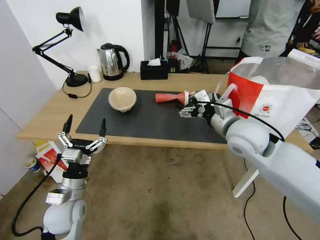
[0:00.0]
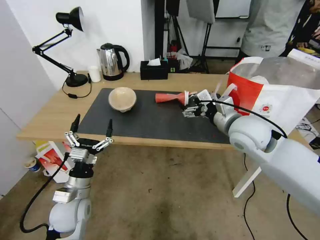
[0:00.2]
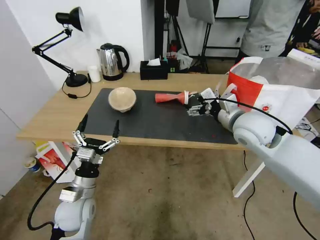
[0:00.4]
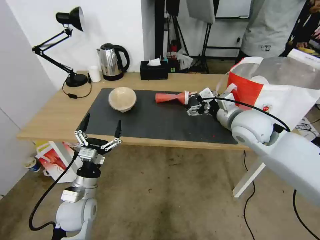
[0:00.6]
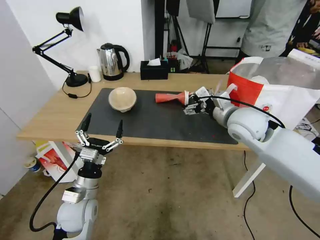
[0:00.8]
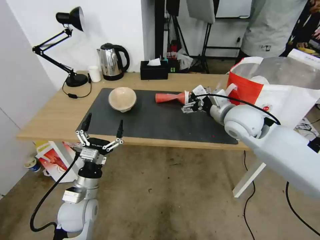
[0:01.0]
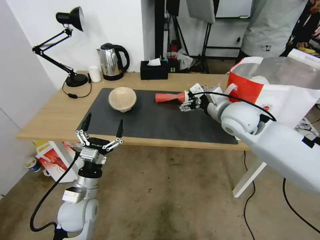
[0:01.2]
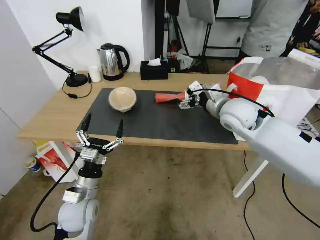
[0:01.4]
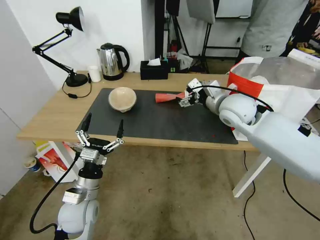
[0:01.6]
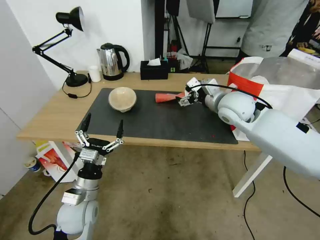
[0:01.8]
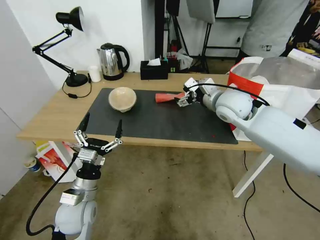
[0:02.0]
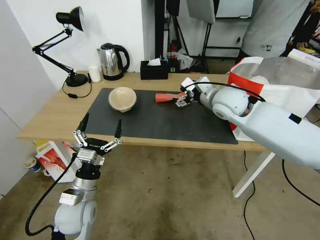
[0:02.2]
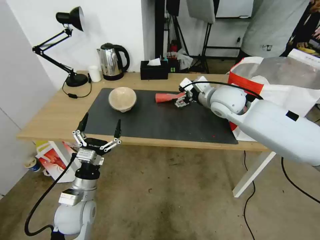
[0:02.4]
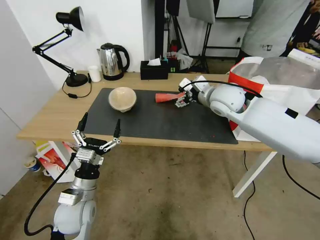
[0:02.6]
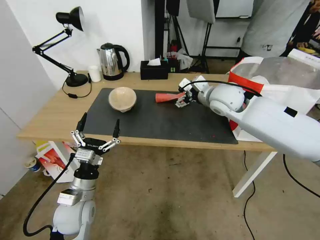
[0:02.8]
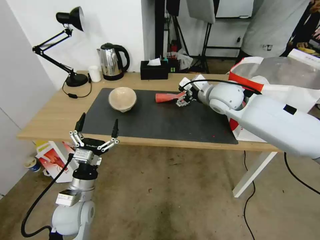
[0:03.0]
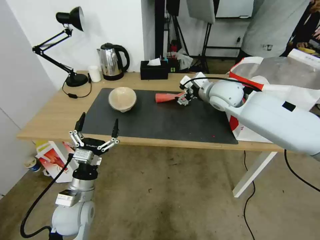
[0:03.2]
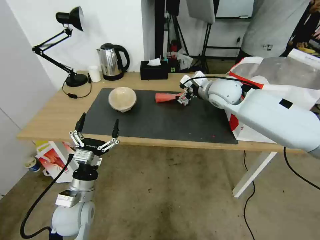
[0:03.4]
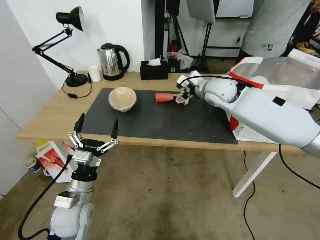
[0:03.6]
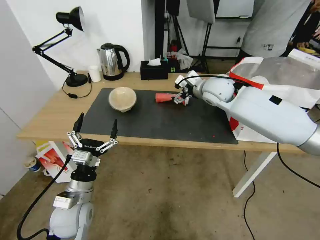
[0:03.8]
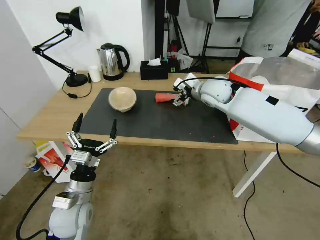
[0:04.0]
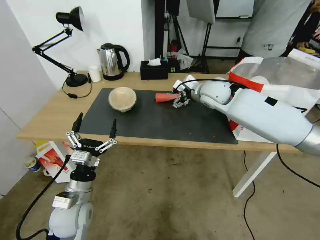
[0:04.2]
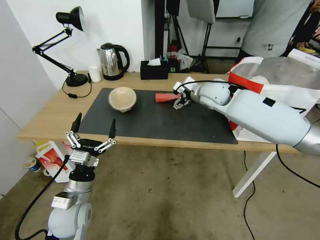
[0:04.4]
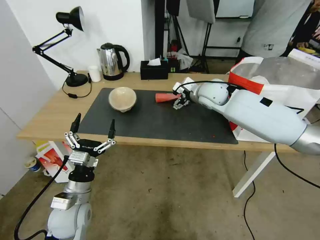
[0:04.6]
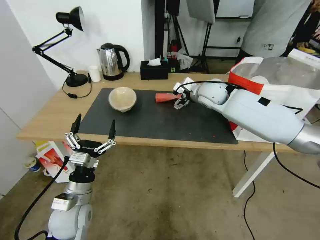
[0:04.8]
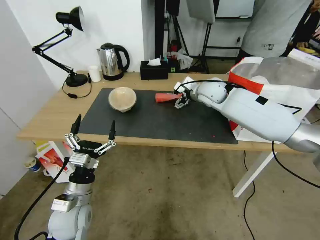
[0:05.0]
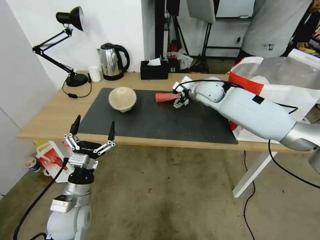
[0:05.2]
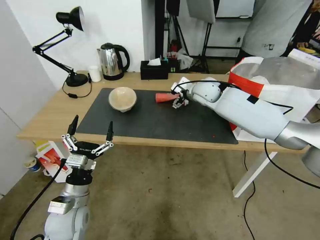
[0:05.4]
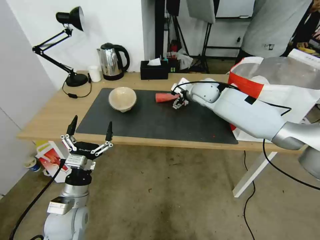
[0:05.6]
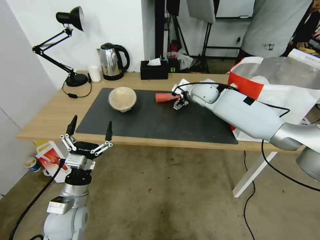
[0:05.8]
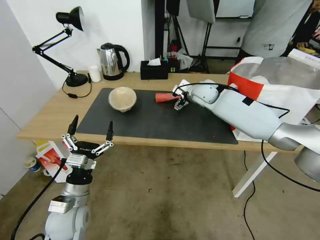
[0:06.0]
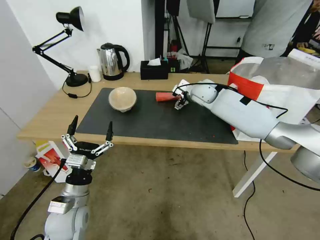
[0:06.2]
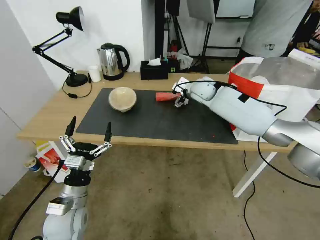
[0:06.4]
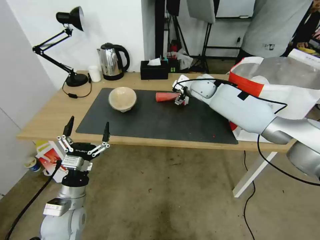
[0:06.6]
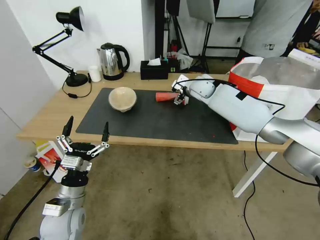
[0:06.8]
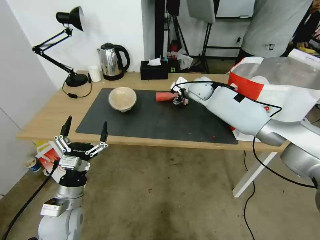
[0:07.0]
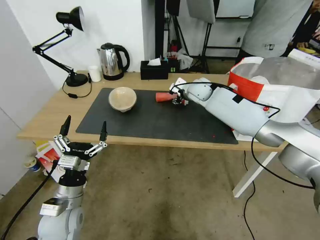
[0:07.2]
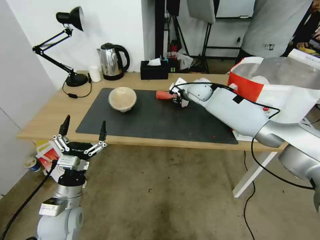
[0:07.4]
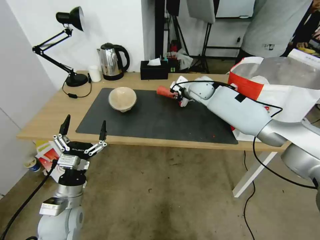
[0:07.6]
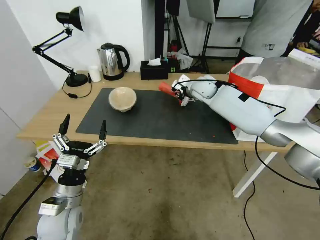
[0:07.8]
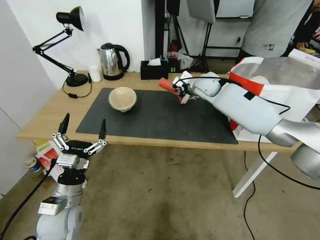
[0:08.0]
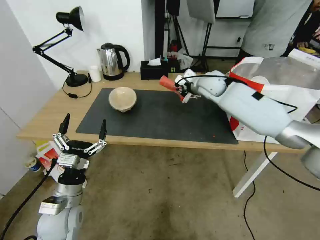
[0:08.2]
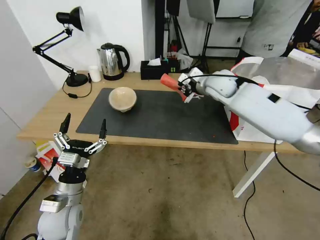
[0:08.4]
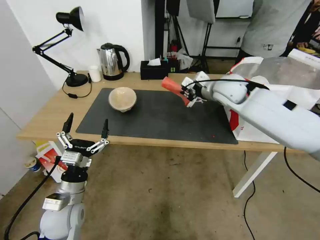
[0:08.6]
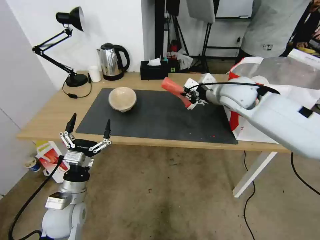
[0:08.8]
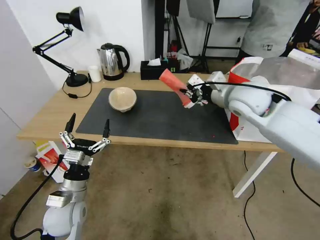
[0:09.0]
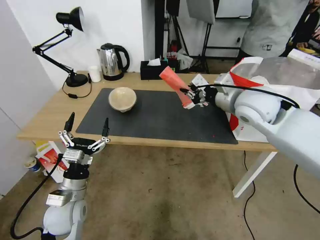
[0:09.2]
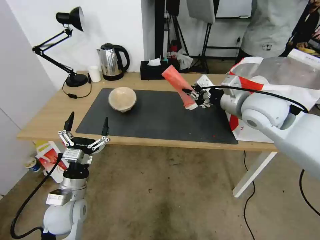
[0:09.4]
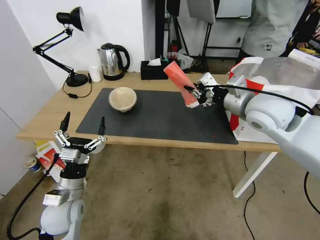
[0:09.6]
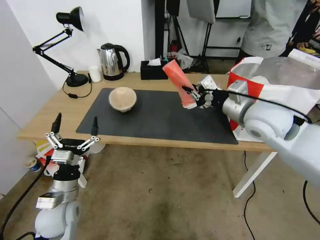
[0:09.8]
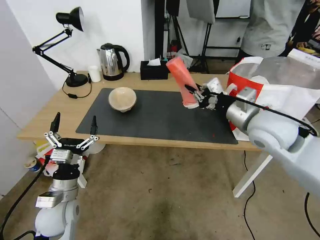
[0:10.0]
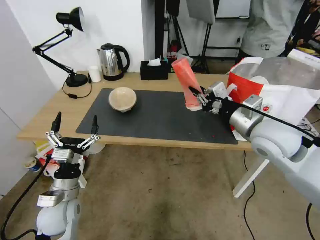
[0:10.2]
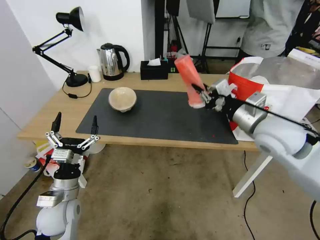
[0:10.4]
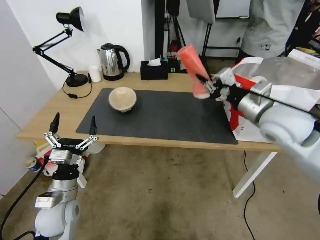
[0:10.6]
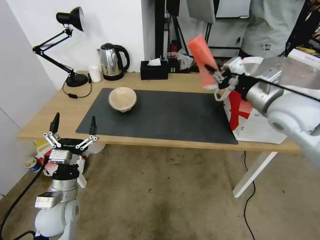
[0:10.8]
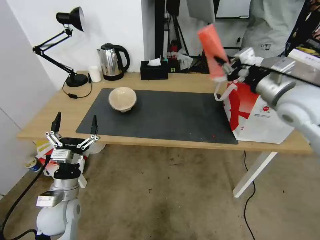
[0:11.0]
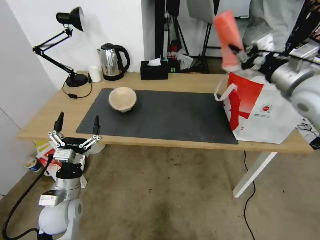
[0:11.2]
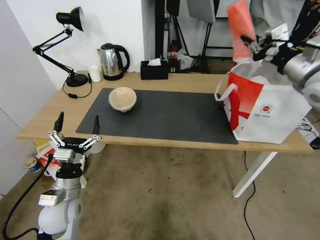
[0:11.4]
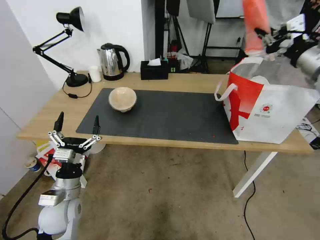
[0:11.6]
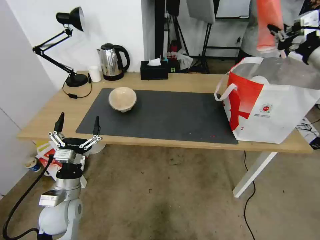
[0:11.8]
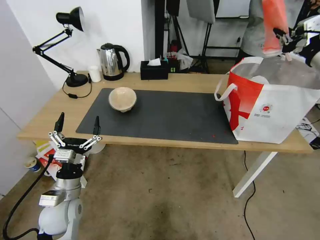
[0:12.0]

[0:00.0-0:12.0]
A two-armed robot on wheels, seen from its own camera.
Task of the whole recording: Pick up the trash from the table and place it into the takeout bag.
0:00.0 to 0:01.6: The right gripper is displaced forward by roughly 10 cm.
0:01.6 to 0:03.0: The right gripper ends up roughly 5 cm from where it was.
0:03.0 to 0:04.4: The right gripper moves roughly 5 cm.
0:04.4 to 0:06.0: The right gripper shifts approximately 5 cm forward.
0:06.0 to 0:07.6: The right gripper closes.
0:07.6 to 0:09.0: The right gripper travels backward, upward and to the right by approximately 20 cm.
0:09.0 to 0:10.4: The right gripper goes approximately 10 cm backward.
0:10.4 to 0:12.0: The right gripper travels to the right, upward and forward by roughly 20 cm.

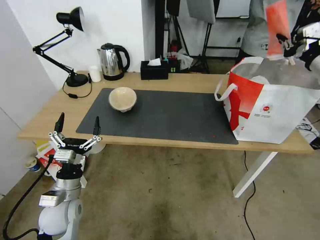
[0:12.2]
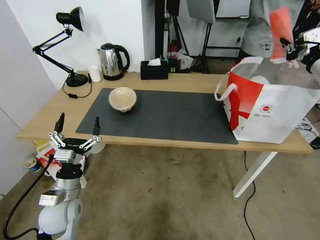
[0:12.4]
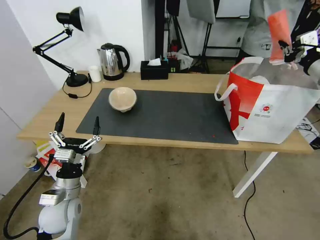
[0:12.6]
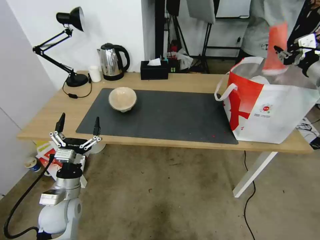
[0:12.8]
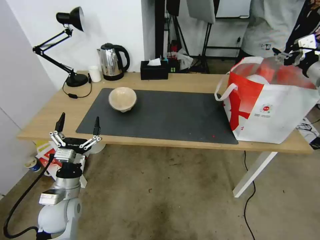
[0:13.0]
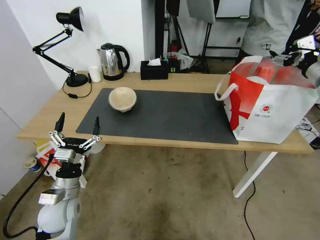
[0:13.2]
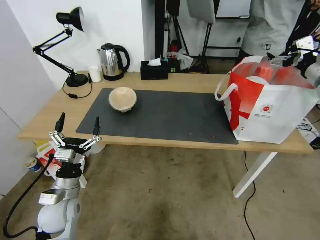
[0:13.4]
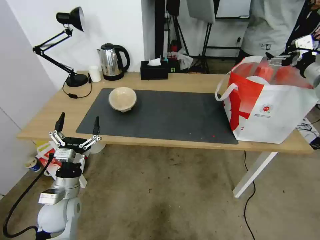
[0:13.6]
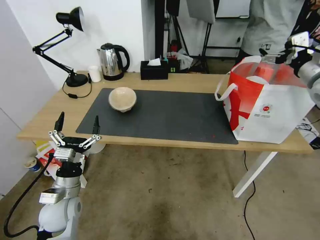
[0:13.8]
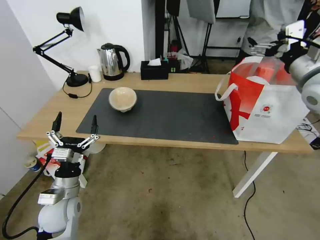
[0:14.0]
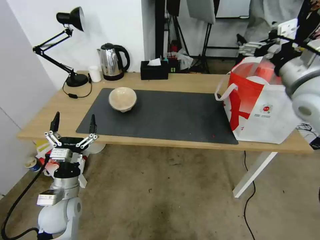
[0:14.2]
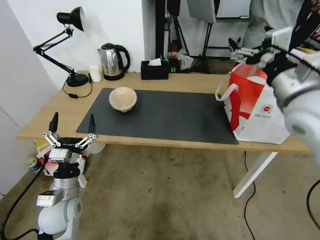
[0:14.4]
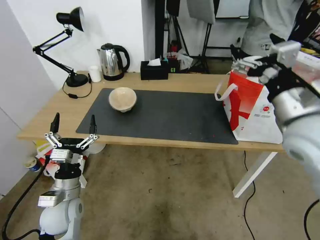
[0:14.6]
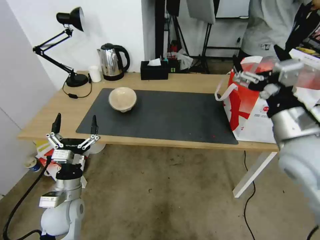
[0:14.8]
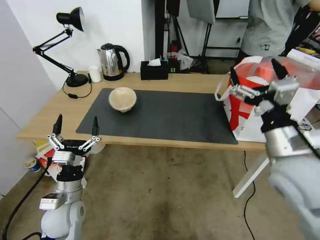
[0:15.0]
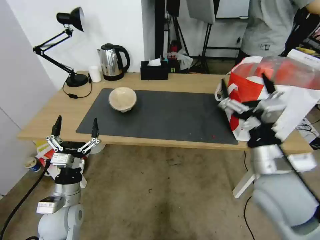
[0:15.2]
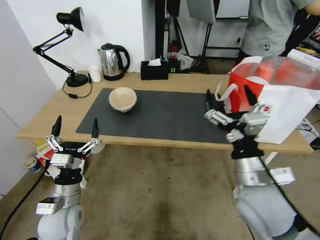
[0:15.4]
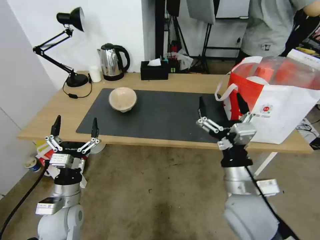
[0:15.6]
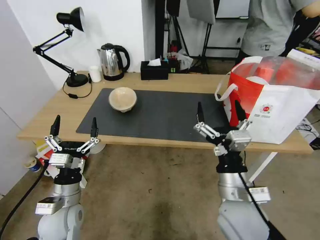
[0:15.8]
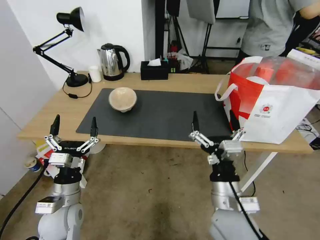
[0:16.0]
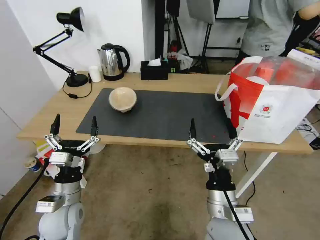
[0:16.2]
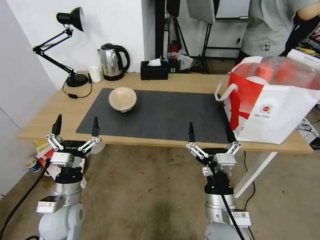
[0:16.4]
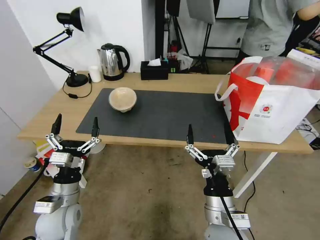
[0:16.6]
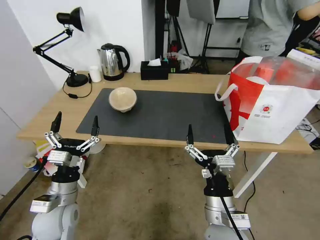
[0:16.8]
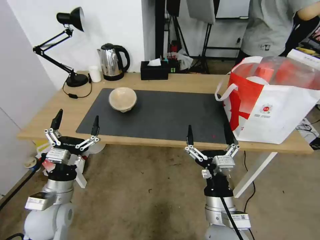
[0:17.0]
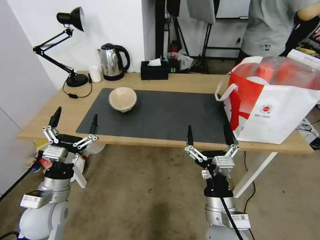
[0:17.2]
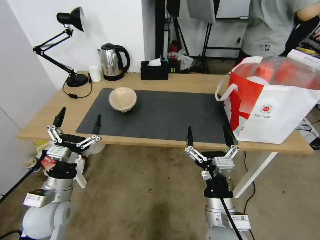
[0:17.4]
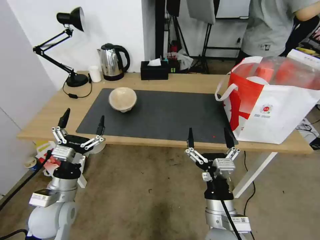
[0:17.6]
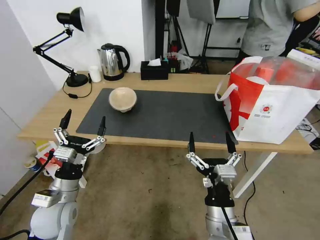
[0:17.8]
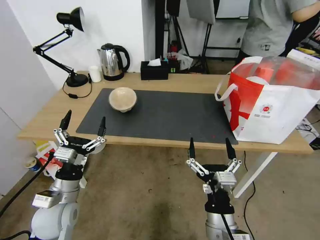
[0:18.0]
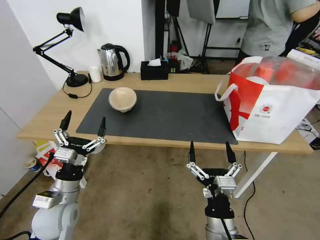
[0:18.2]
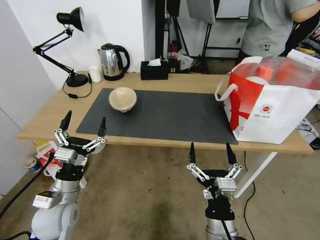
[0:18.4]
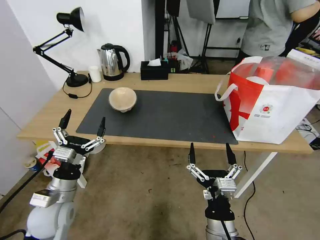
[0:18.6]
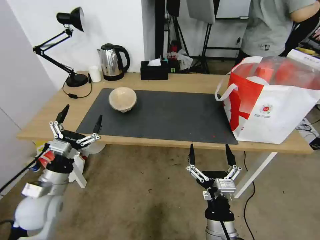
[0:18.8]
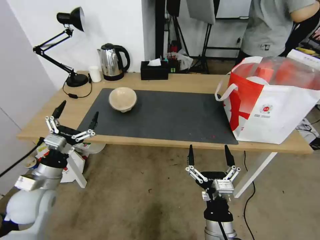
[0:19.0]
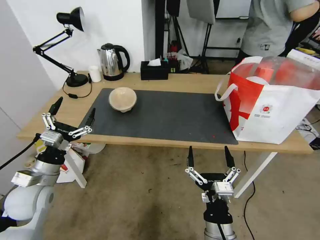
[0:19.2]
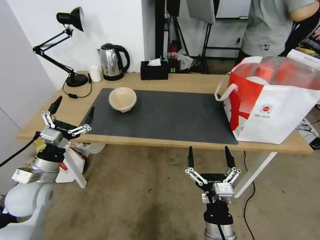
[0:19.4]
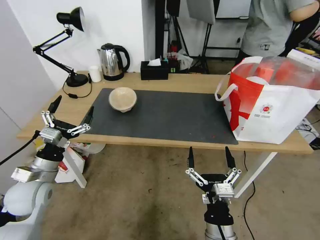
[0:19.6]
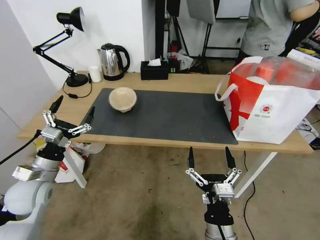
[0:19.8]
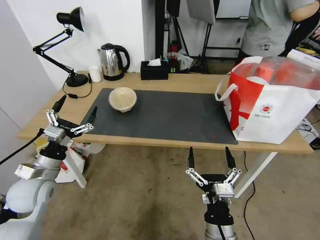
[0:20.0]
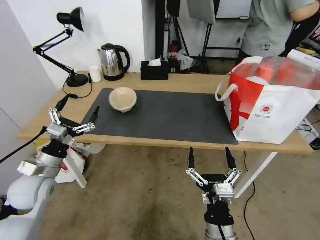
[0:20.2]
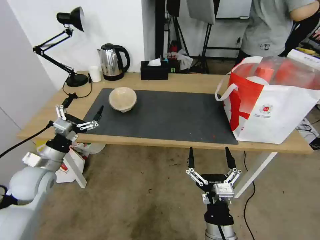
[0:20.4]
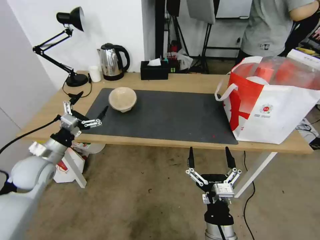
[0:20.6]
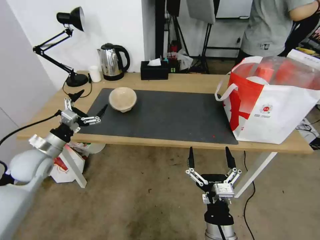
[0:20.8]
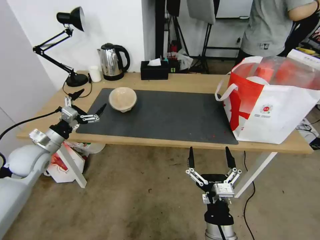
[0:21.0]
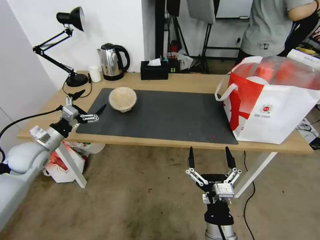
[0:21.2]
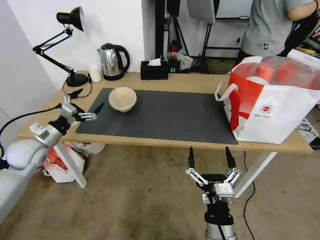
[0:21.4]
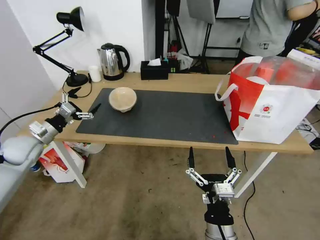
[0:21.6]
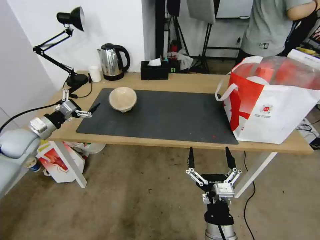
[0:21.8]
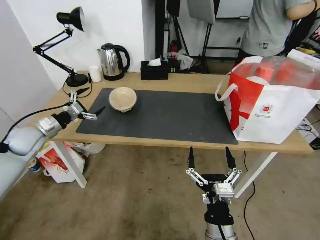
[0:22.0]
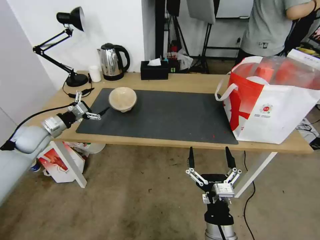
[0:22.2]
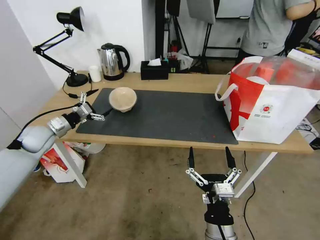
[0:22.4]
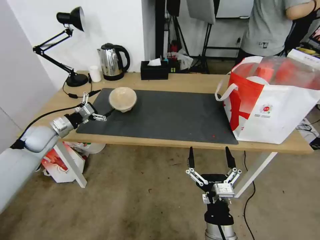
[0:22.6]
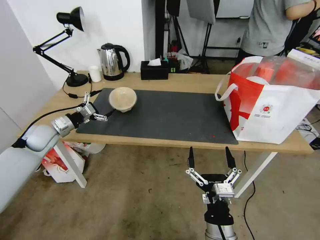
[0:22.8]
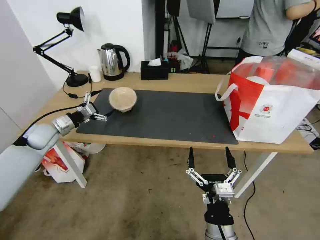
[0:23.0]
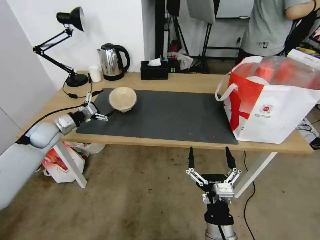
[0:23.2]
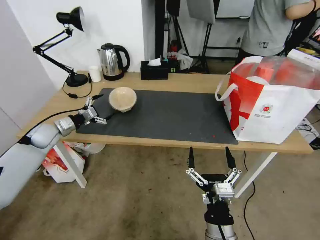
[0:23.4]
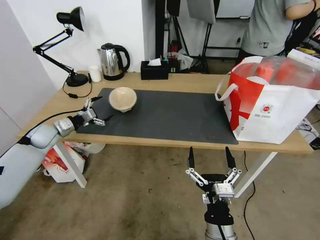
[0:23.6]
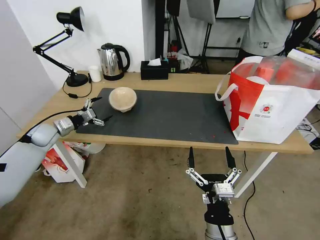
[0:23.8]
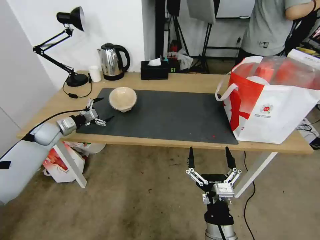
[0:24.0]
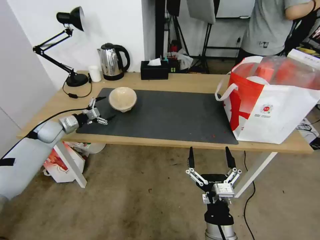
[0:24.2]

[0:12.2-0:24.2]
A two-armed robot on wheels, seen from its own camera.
Task of the whole recording: Pick up the trash from the table and place it into the takeout bag.
0:12.2 to 0:13.8: The right gripper opens up.
0:13.8 to 0:15.2: The right gripper goes about 30 cm backward, to the left and downward.
0:15.2 to 0:16.6: The right gripper travels downward, to the left and backward by approximately 15 cm.
0:16.6 to 0:18.2: The grippers move only a little.
0:18.2 to 0:19.8: The left gripper is displaced to the left by approximately 10 cm.
0:19.8 to 0:21.2: The left gripper heads forward and to the left, covering roughly 10 cm.
0:21.2 to 0:22.6: The left gripper shifts about 10 cm forward.
0:22.6 to 0:24.2: The left gripper heads forward, covering roughly 5 cm.
